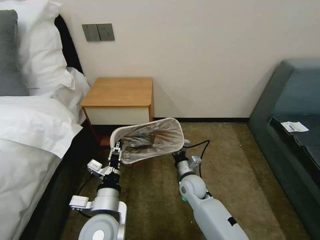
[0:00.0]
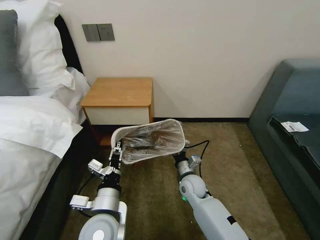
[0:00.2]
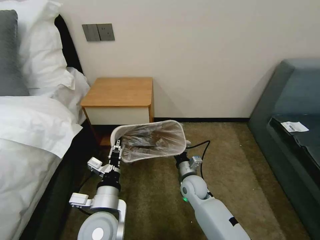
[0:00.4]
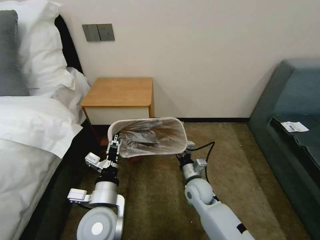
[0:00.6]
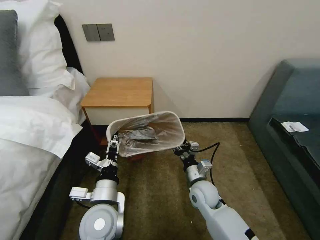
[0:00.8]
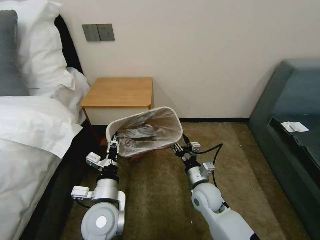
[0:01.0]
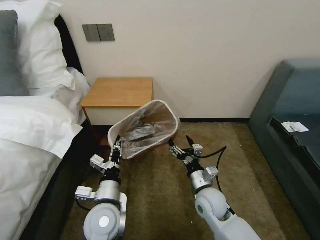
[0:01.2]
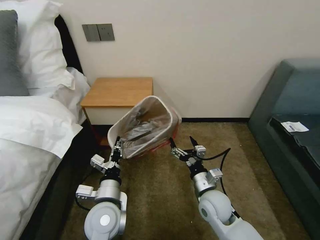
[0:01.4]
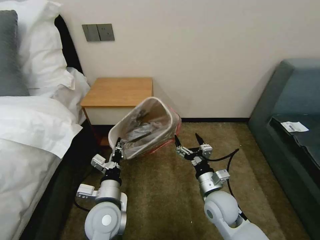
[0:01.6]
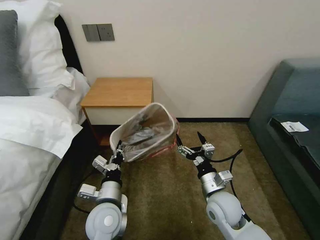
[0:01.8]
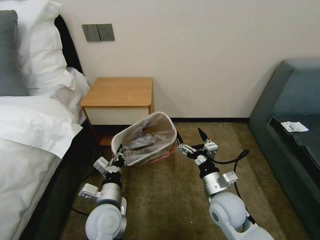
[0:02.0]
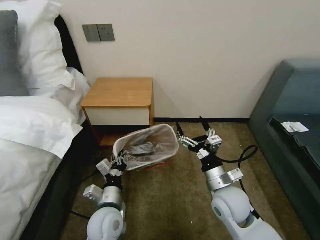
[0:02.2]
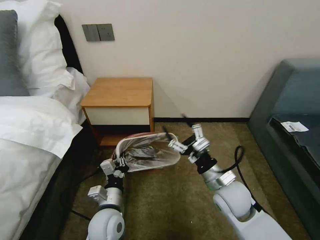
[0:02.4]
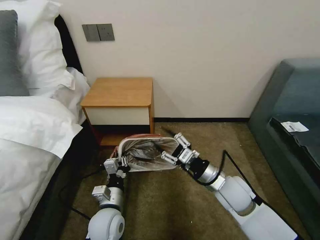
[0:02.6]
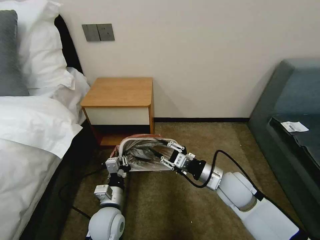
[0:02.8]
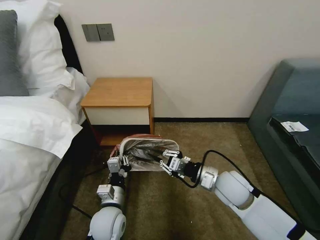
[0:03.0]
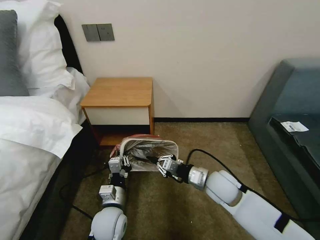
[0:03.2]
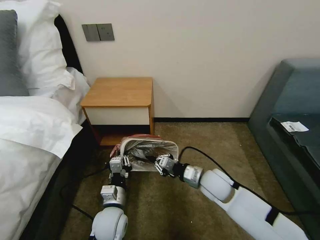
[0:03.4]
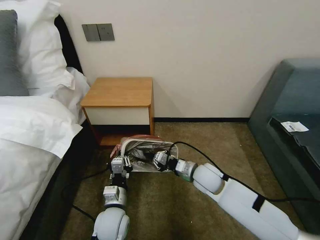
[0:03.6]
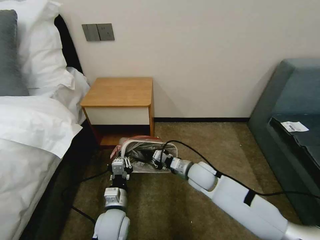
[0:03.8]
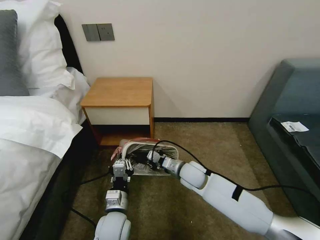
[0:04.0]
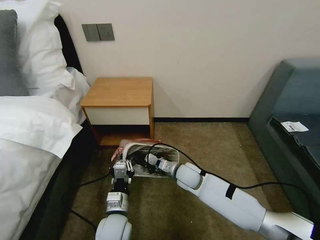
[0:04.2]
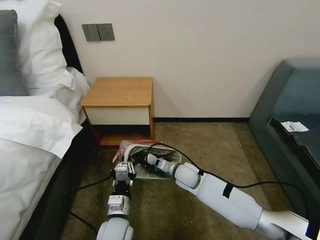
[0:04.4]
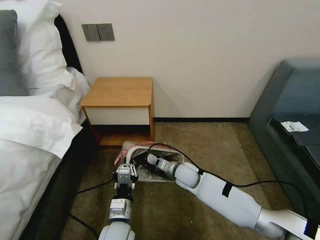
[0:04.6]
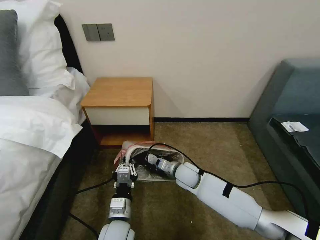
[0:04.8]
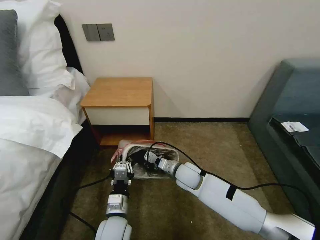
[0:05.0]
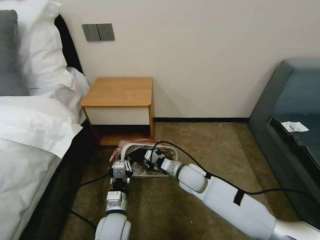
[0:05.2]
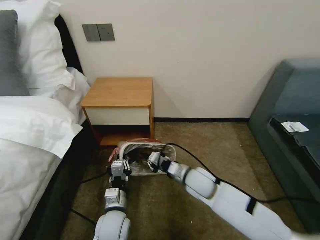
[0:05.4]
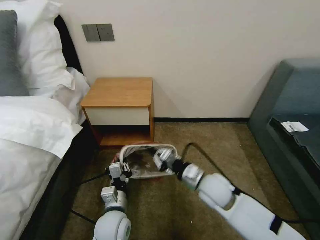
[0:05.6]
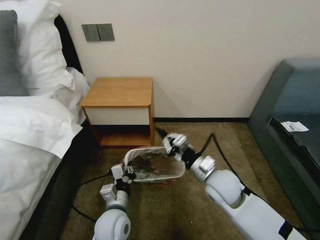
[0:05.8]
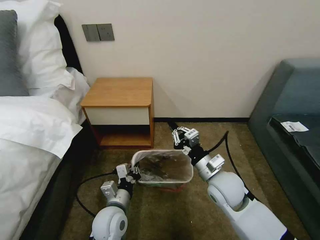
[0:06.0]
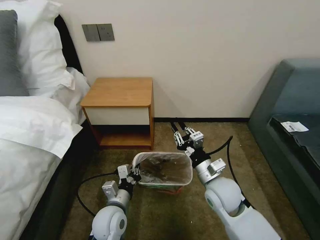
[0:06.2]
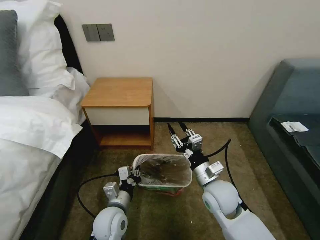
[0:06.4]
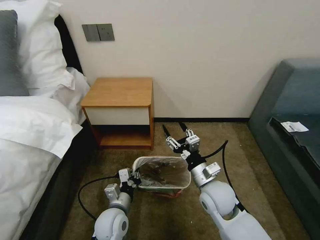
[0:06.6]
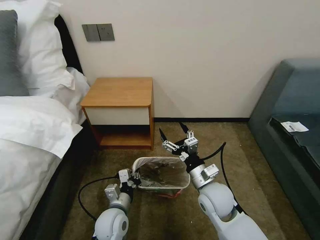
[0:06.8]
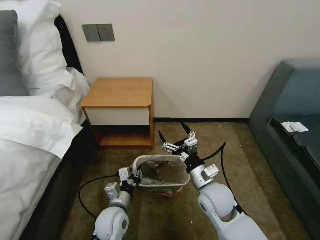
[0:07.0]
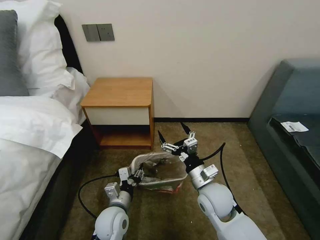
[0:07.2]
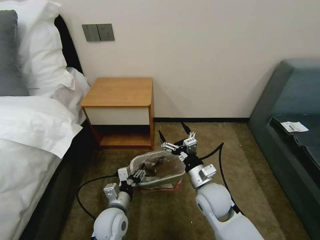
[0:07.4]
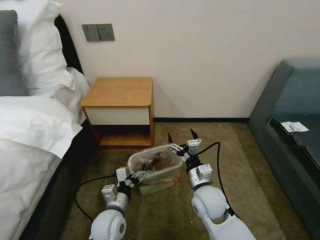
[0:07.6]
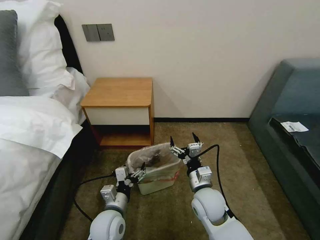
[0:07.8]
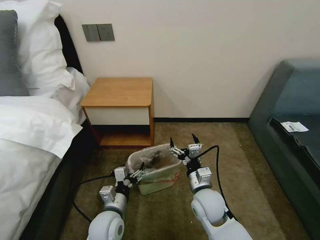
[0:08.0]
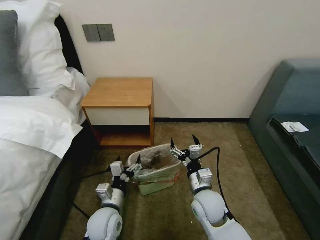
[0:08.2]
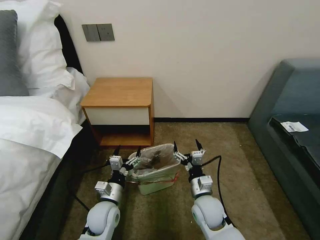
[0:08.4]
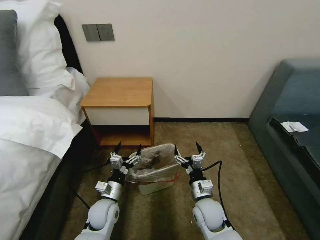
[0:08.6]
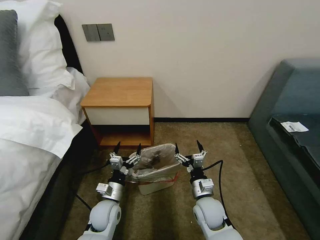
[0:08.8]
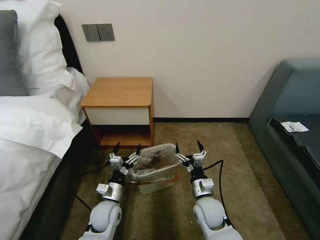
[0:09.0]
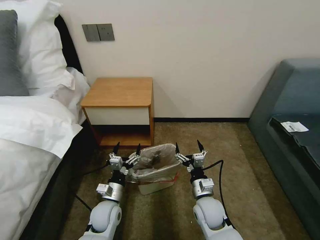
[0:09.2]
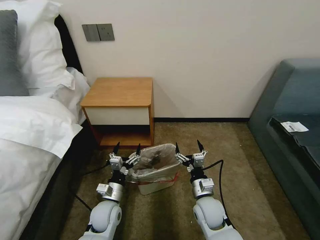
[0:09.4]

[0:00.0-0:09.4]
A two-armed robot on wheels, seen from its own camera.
Task of the whole recording: Pick up the garbage bag from the table and place it over the trash can.
0:00.0 to 0:01.6: The right gripper is displaced backward, to the right and upward by roughly 10 cm, and opens its fingers.
0:01.6 to 0:03.2: The left gripper is displaced downward by some 5 cm, while the right gripper moves some 5 cm, and closes.
0:03.2 to 0:04.8: The right gripper shifts some 15 cm to the left, downward and forward.
0:04.8 to 0:06.2: The right gripper goes about 15 cm backward, upward and to the right; the left gripper changes place by some 5 cm.
0:06.2 to 0:07.8: The left gripper opens up. The right gripper is displaced downward by approximately 5 cm, and opens its fingers.
0:07.8 to 0:09.4: The left gripper ends up approximately 5 cm from where it was; the right gripper is displaced downward by some 5 cm.

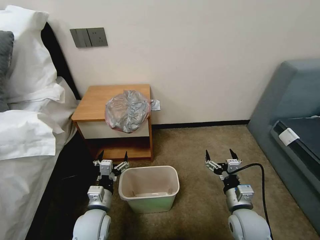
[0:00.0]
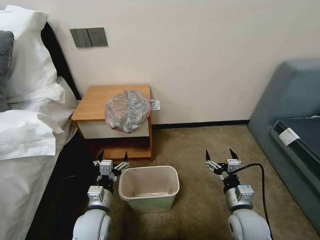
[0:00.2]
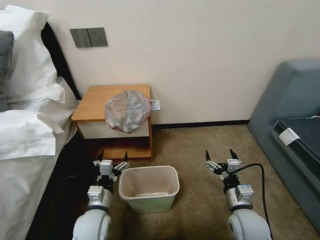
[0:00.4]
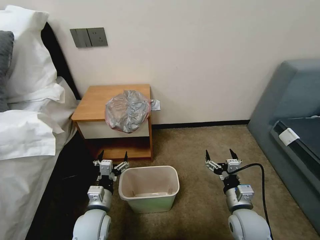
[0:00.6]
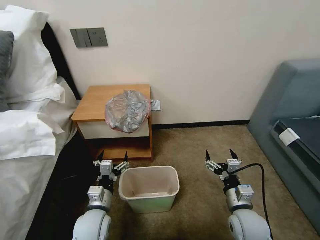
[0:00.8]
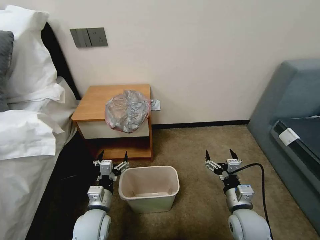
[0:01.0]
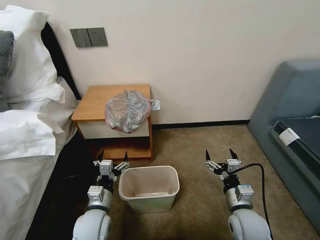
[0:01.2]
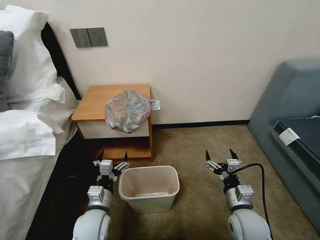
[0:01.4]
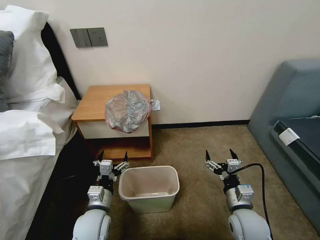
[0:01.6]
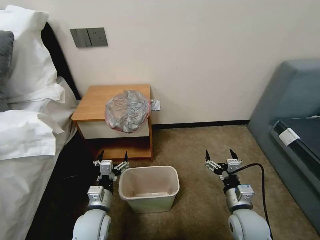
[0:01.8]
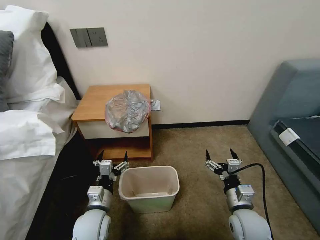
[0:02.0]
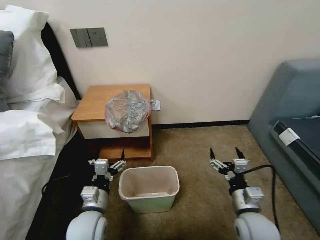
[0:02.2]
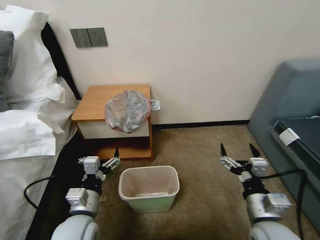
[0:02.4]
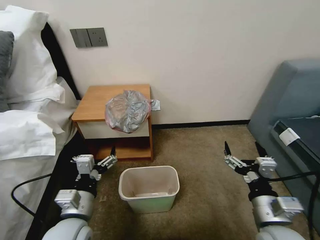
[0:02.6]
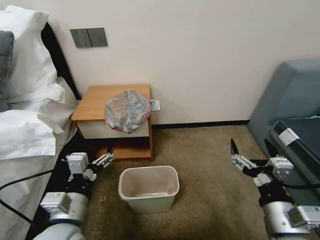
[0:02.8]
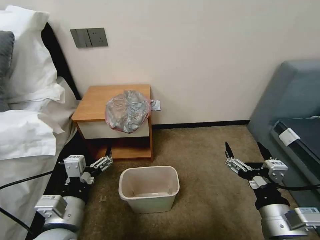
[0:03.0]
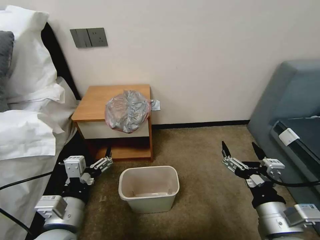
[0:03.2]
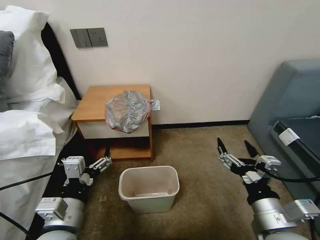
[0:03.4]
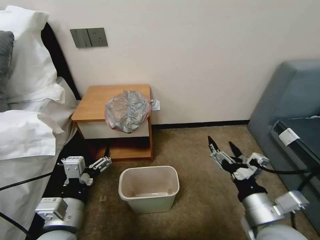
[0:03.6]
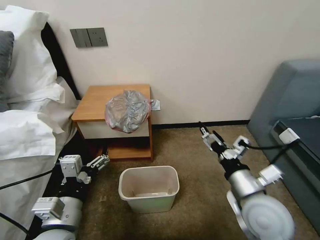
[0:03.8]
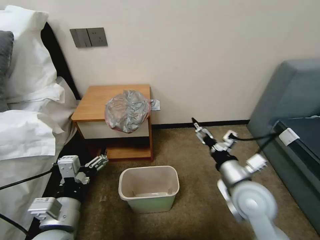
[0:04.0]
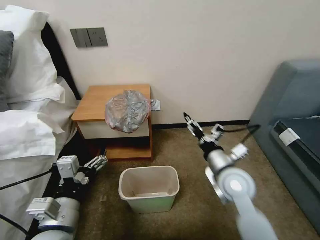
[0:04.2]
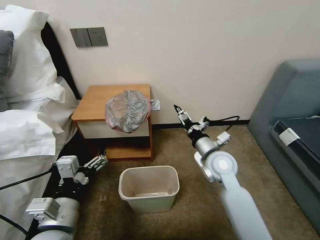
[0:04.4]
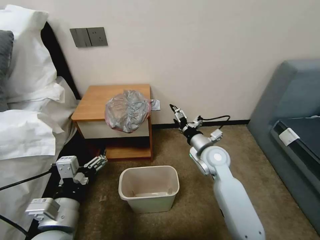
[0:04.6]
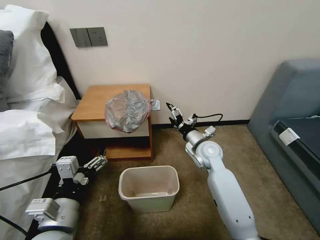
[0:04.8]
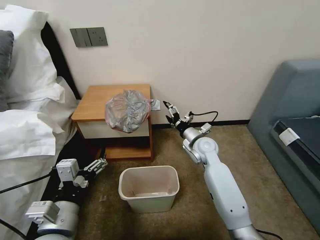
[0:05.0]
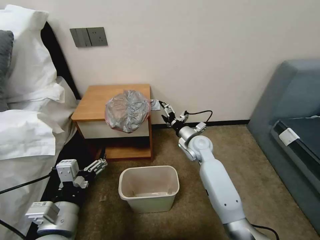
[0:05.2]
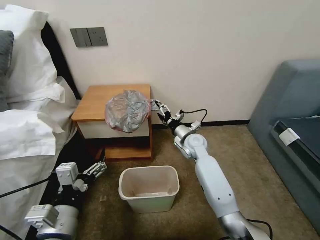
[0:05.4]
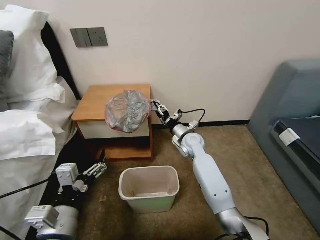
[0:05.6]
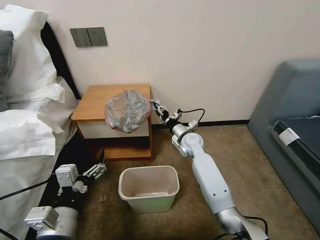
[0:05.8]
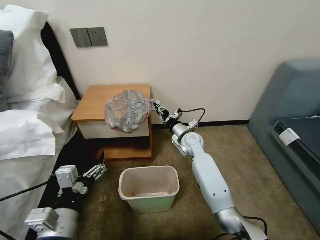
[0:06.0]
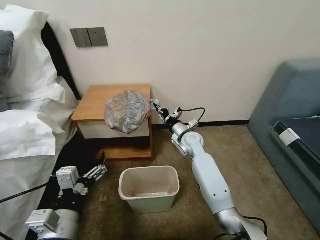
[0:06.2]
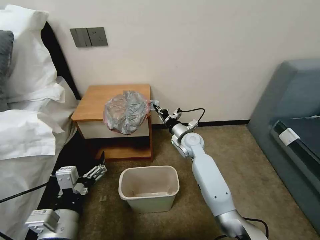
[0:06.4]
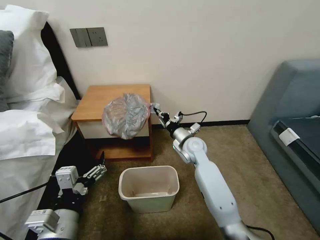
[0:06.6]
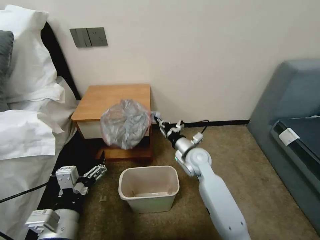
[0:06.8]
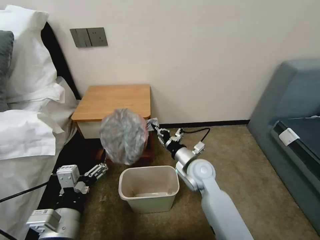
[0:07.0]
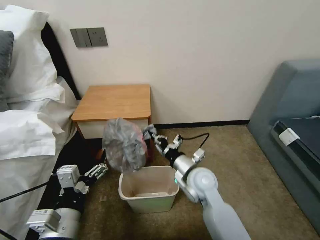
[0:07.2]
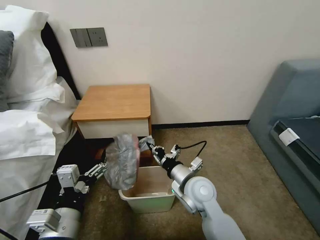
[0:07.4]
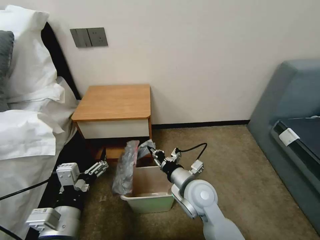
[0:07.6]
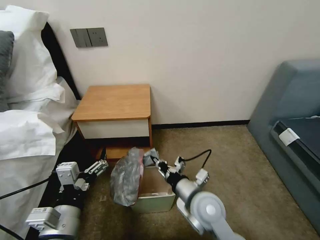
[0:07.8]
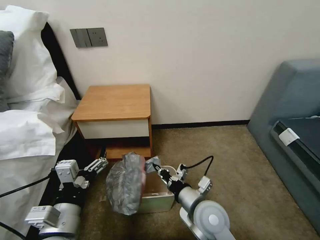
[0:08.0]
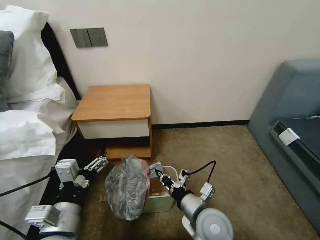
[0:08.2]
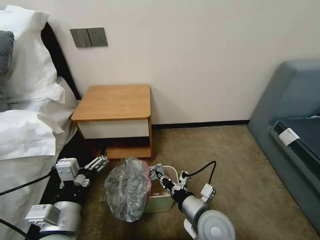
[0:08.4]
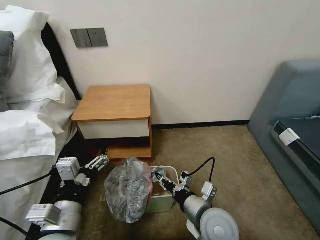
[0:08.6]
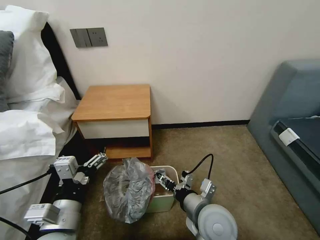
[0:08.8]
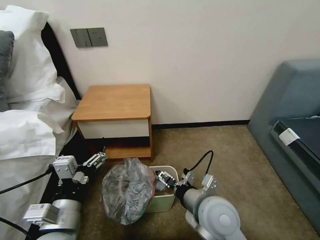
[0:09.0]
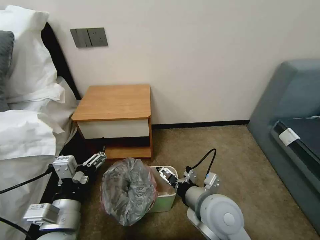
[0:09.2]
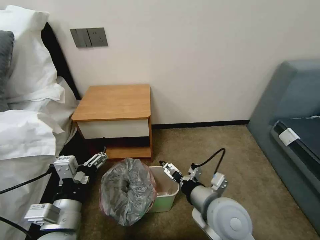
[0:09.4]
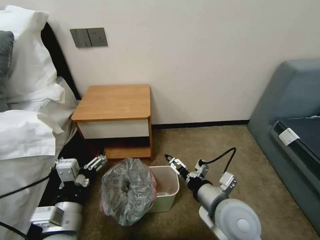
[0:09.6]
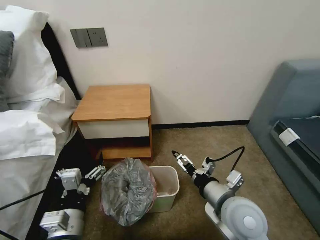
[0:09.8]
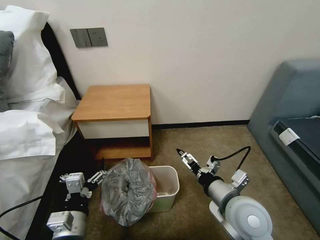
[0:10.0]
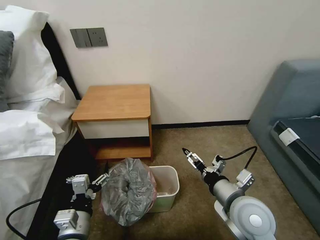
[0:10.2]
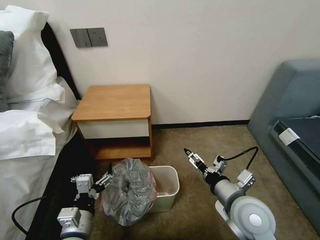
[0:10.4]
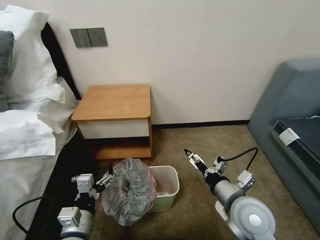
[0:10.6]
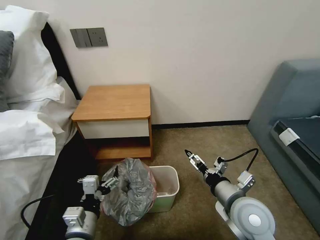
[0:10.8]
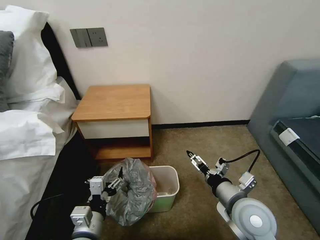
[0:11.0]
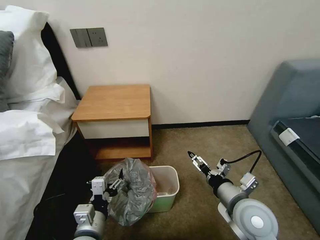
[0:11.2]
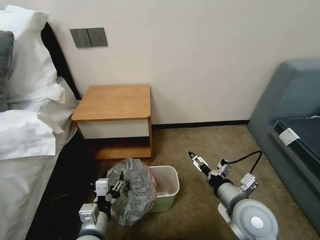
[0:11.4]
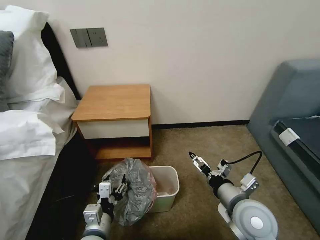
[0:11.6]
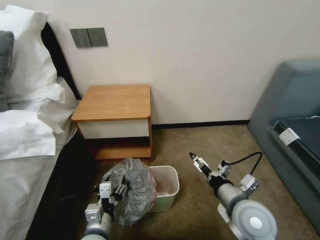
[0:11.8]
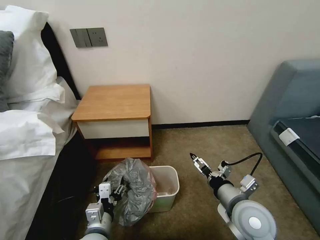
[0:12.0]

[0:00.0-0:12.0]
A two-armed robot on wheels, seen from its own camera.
Task of the whole recording: Pick up the garbage bag from the table and place it over the trash can.
0:01.6 to 0:03.0: The grippers both shift upward and backward by approximately 15 cm.
0:03.0 to 0:04.4: The right gripper heads forward, covering approximately 20 cm.
0:04.4 to 0:06.0: The right gripper goes roughly 20 cm forward, downward and to the left, and closes.
0:06.0 to 0:07.6: The right gripper travels backward by some 20 cm.
0:07.6 to 0:09.0: The right gripper moves backward, some 5 cm, and opens its fingers.
0:09.0 to 0:10.4: The left gripper is displaced downward by about 10 cm; the right gripper is displaced to the right by some 10 cm.
0:10.4 to 0:12.0: The left gripper shifts by approximately 5 cm, and closes.

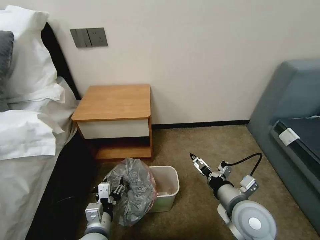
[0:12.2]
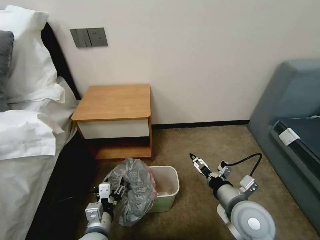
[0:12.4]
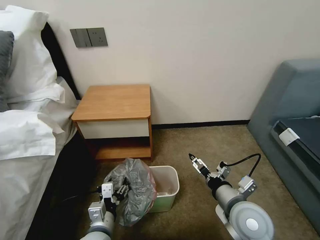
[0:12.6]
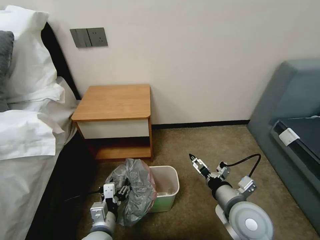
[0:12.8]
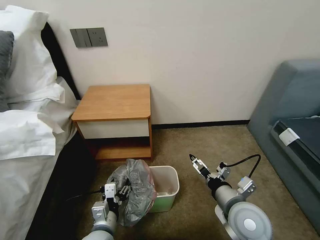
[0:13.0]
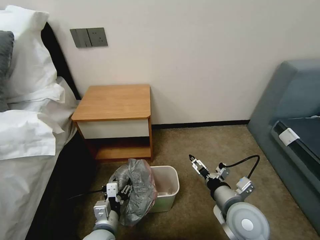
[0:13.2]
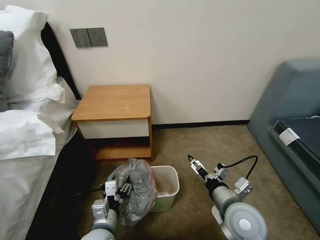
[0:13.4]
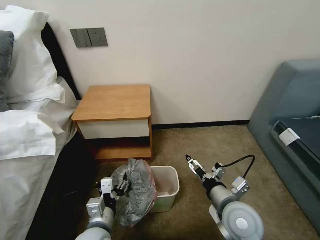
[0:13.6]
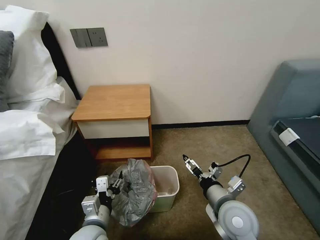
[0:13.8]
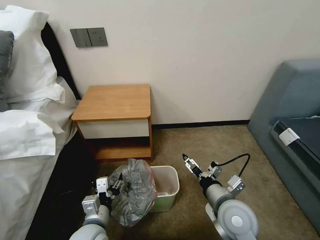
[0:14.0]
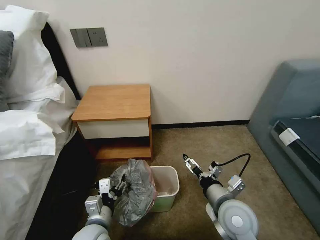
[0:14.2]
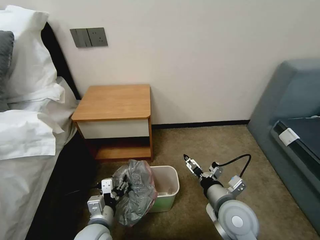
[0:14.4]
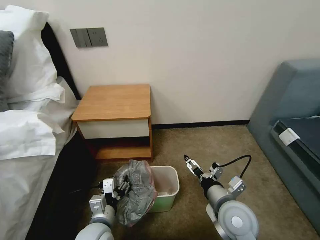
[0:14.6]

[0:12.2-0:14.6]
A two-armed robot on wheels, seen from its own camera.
Task of the whole recording: Pick up the garbage bag from the table and place it over the trash can.
0:12.2 to 0:14.6: The grippers stay close to where they were, moving slightly.
